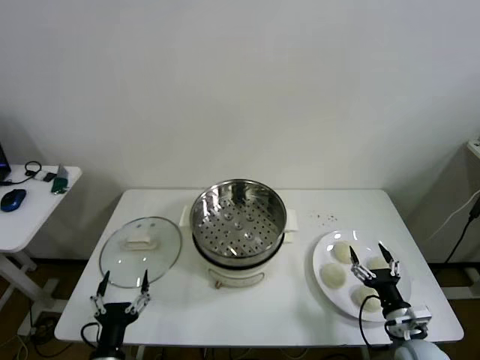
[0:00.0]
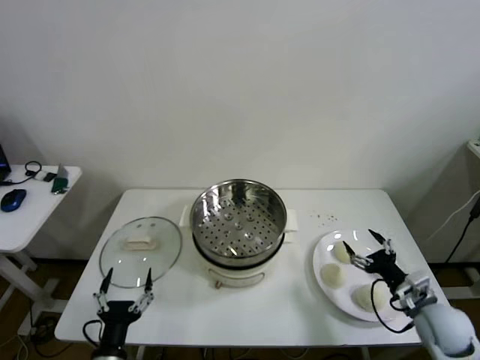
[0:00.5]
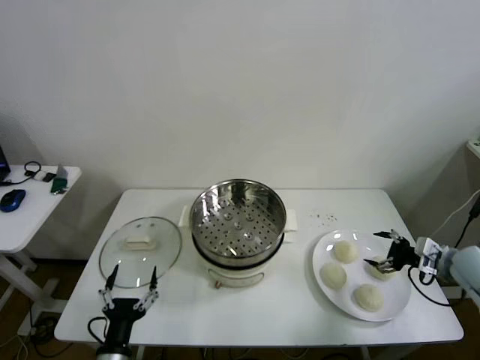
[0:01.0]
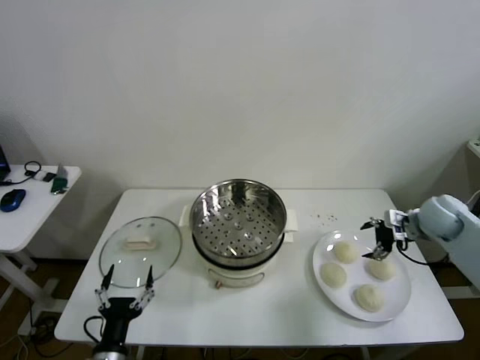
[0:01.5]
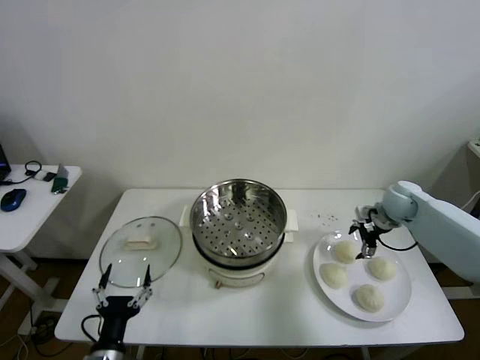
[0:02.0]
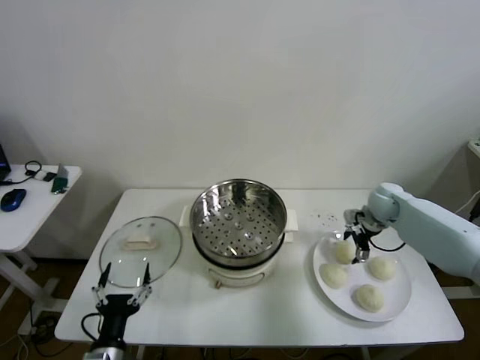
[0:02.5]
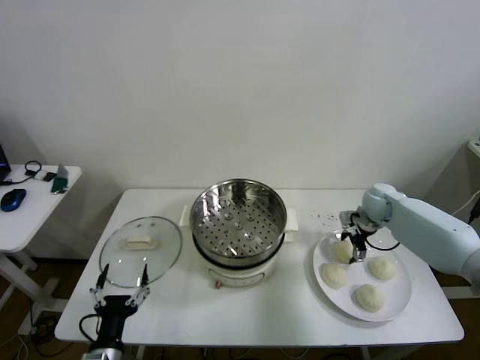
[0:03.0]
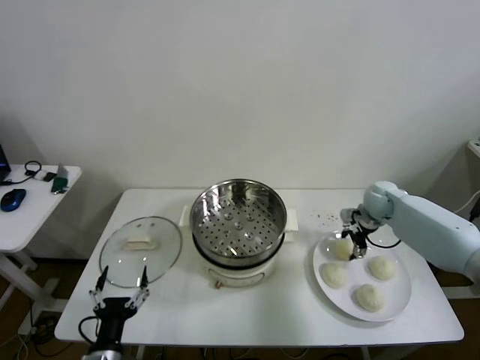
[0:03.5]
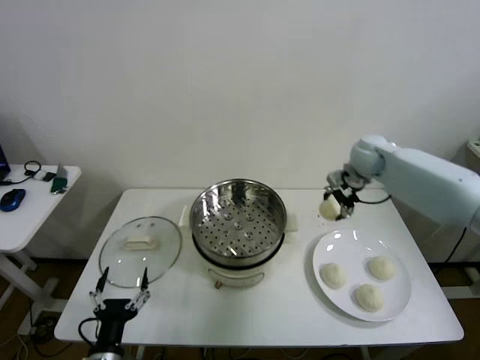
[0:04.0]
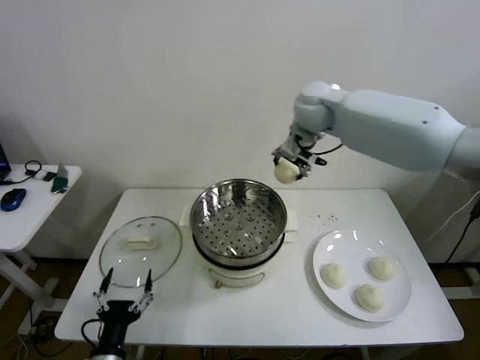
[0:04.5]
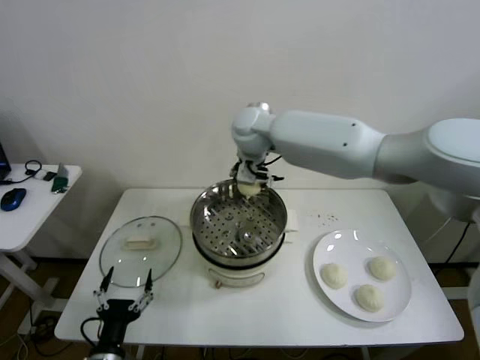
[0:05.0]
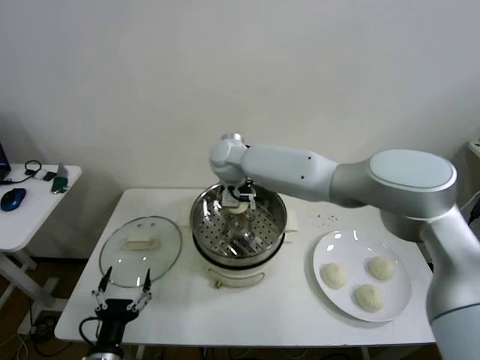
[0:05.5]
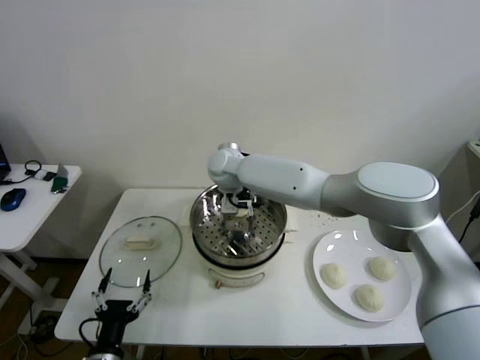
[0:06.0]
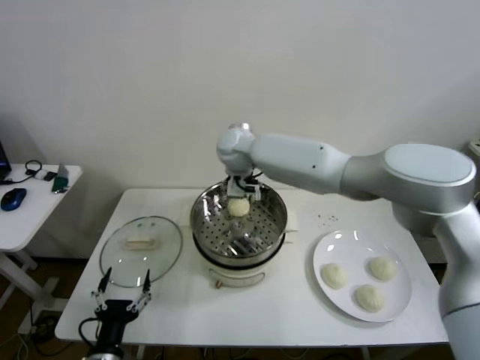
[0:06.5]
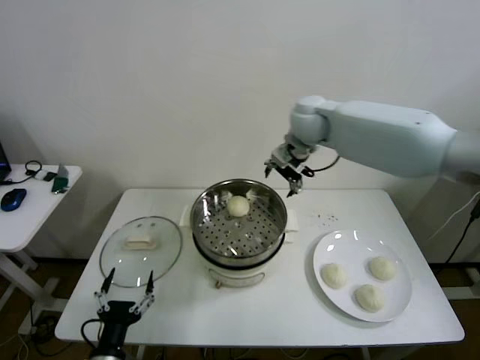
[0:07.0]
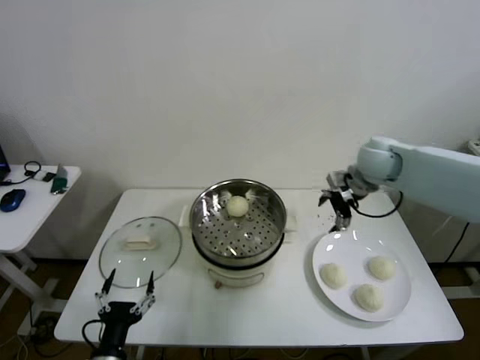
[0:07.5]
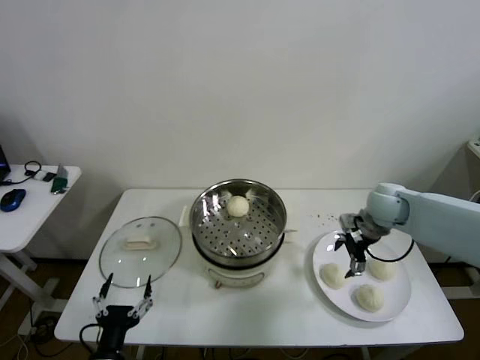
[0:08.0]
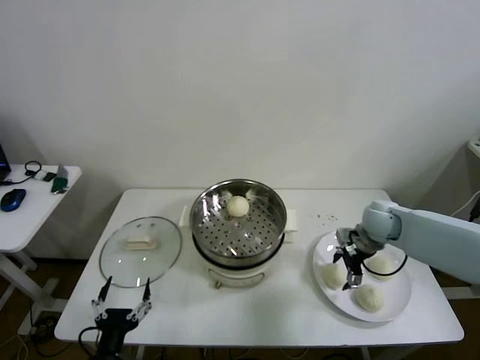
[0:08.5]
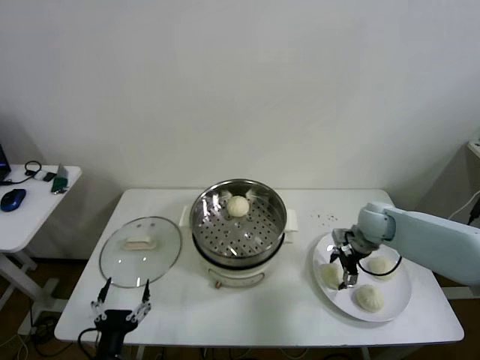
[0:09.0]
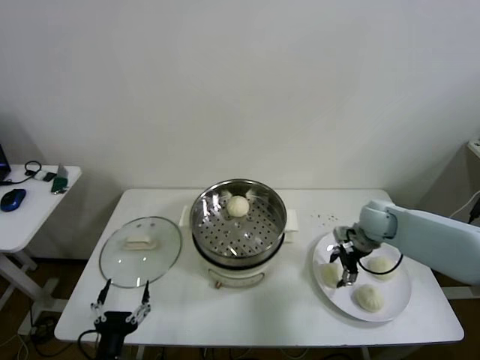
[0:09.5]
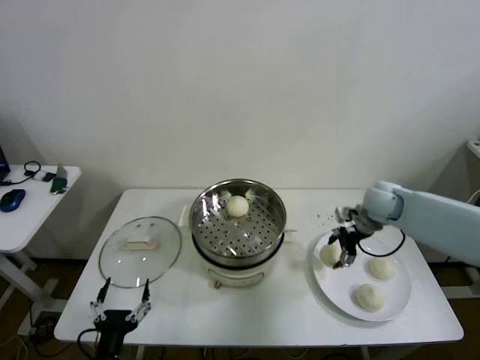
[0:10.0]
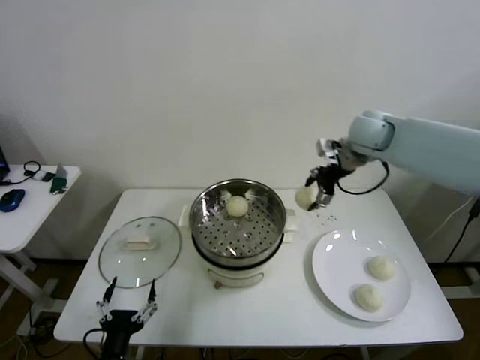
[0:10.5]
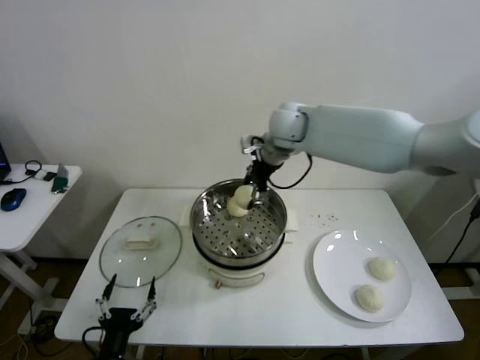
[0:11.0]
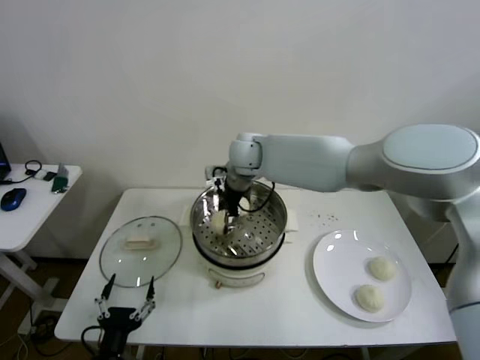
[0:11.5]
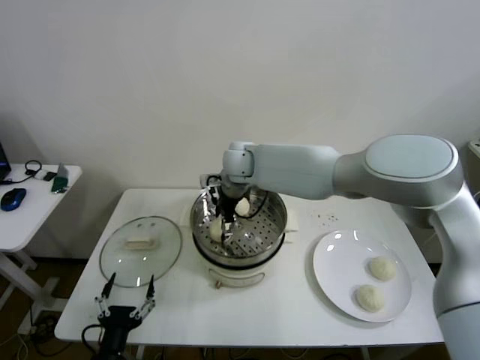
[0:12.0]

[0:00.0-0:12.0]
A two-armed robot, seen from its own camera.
Step, 0:00.0 to 0:03.0: Grasp the baozi in the plate with right gripper.
Step, 0:03.5 to 0:05.5: Place the baozi on the steamer with right gripper.
Step, 0:06.0 to 0:09.0: Grasp the baozi in the plate with right gripper.
Step, 0:09.5 to 0:11.5: Place the baozi on the steamer with right gripper.
0:02.0 to 0:04.0: The right gripper moves upward, to the left and forward, about 15 cm.
0:04.0 to 0:06.0: The right gripper heads to the left, covering some 35 cm.
0:06.0 to 0:08.0: The right gripper is displaced to the right by some 40 cm.
0:10.0 to 0:12.0: The right gripper is displaced to the left by approximately 35 cm.

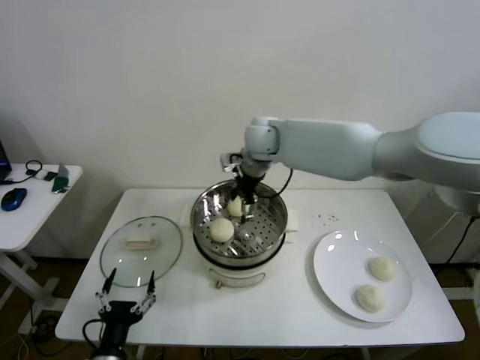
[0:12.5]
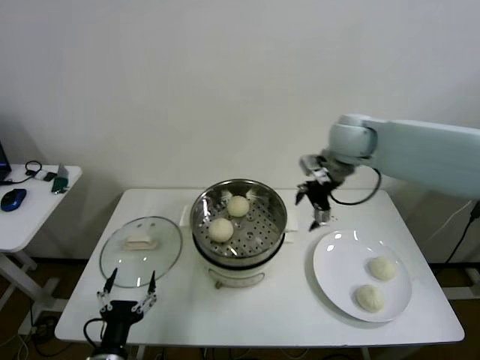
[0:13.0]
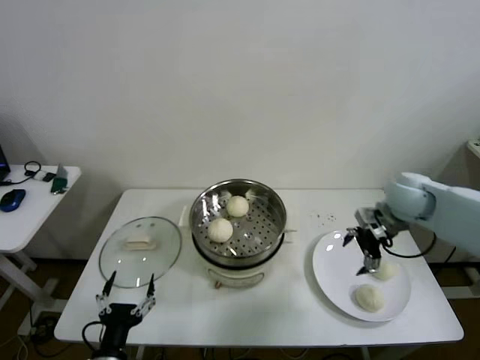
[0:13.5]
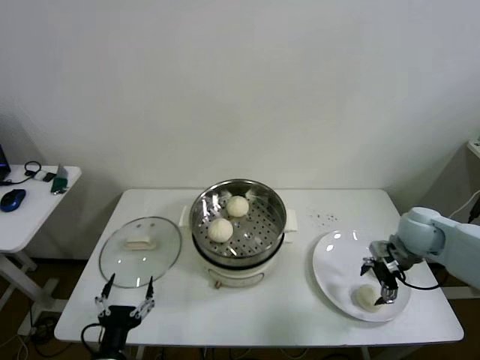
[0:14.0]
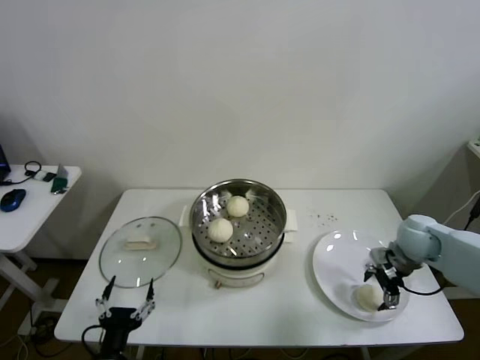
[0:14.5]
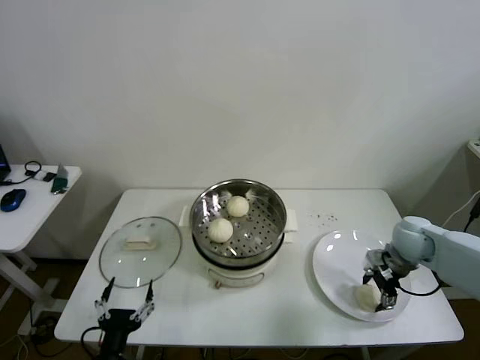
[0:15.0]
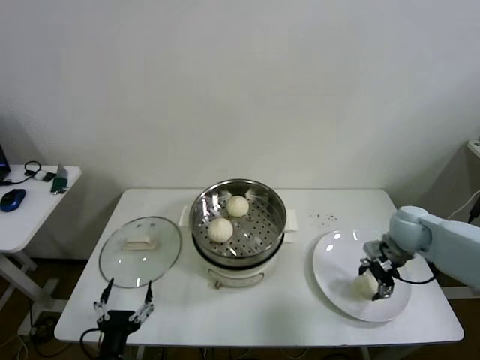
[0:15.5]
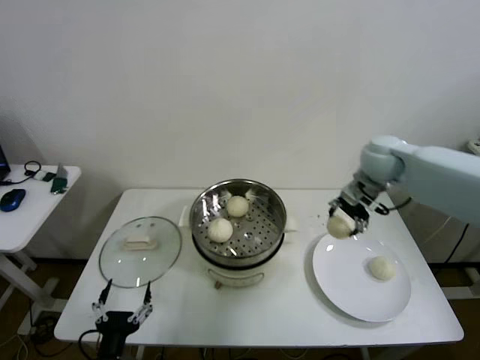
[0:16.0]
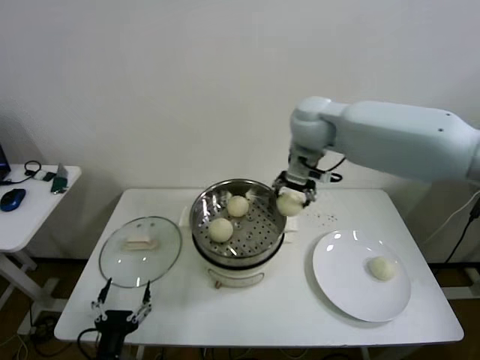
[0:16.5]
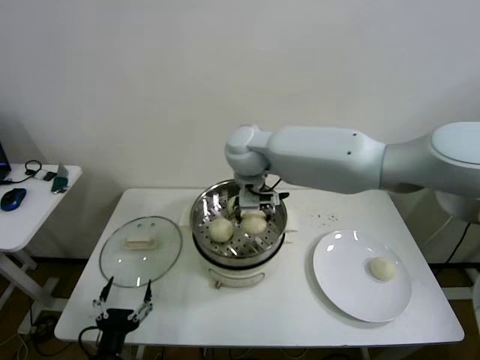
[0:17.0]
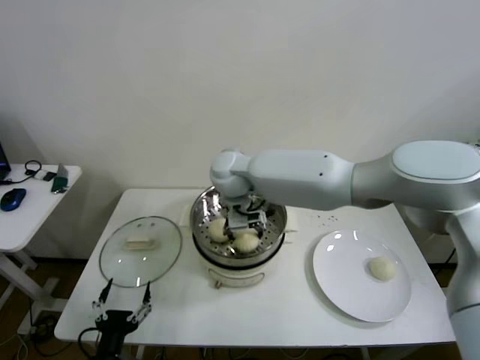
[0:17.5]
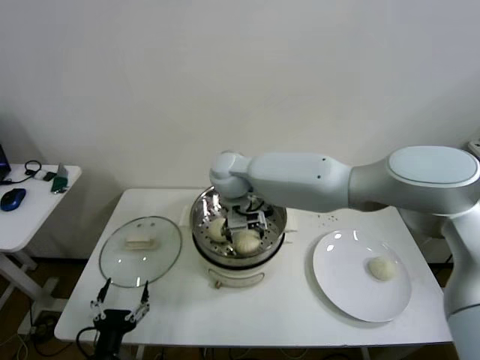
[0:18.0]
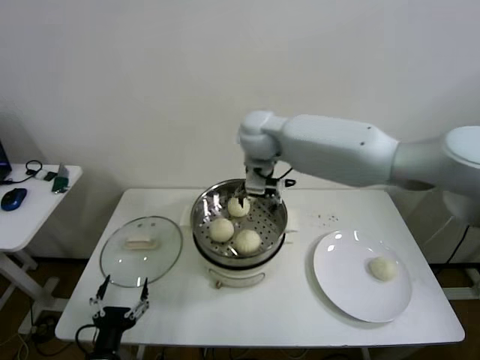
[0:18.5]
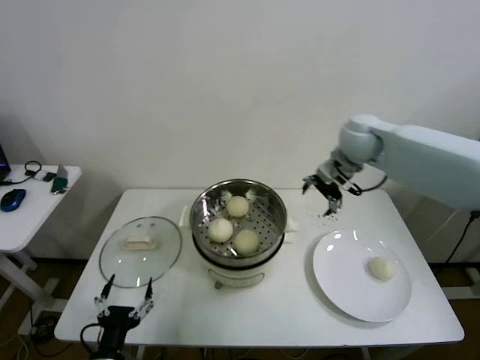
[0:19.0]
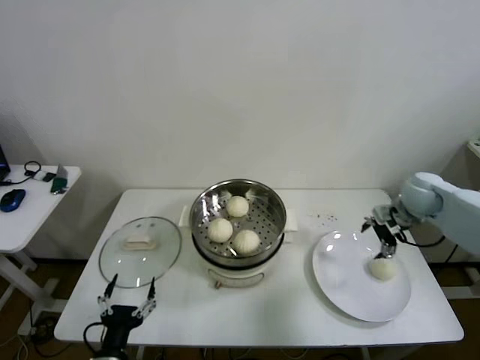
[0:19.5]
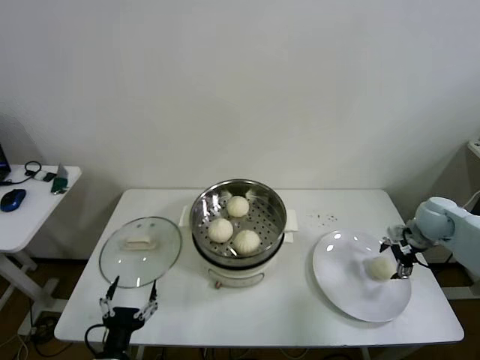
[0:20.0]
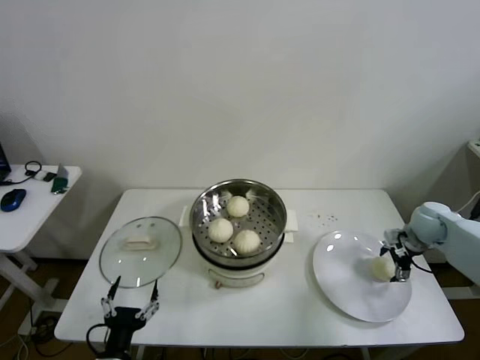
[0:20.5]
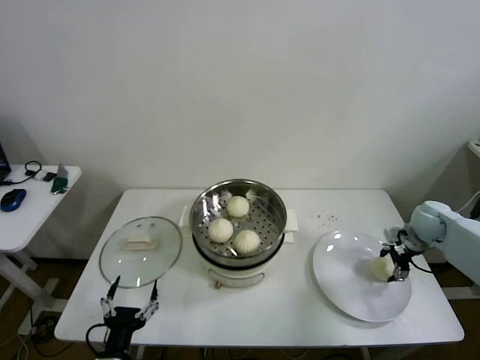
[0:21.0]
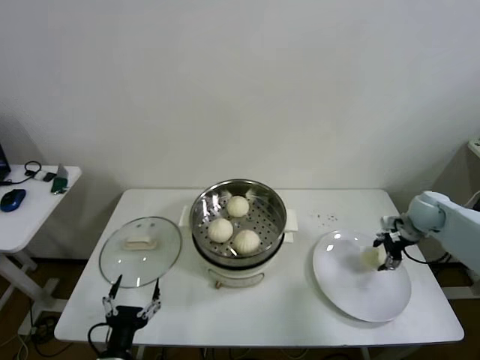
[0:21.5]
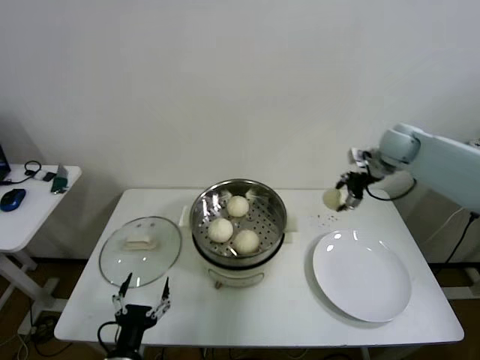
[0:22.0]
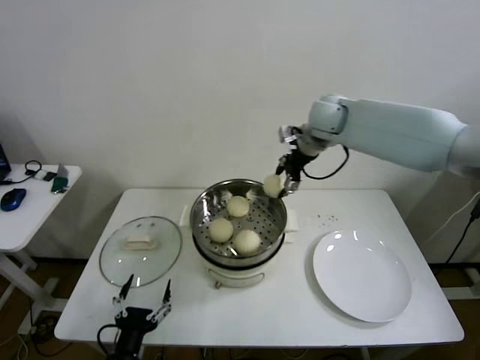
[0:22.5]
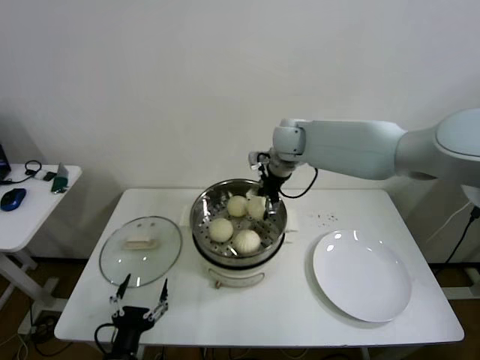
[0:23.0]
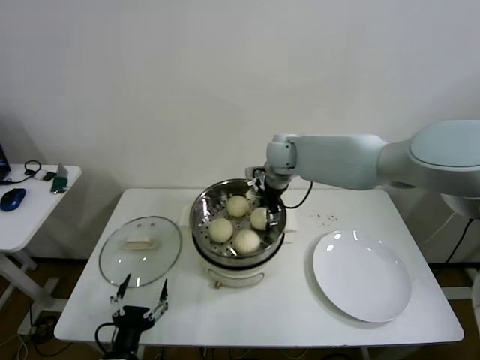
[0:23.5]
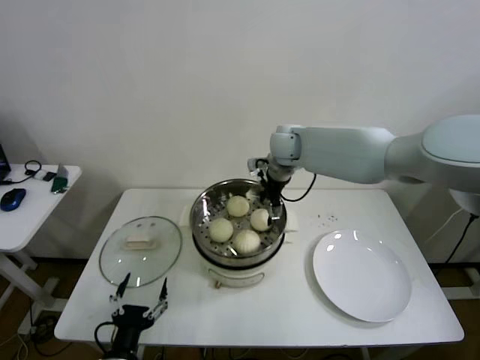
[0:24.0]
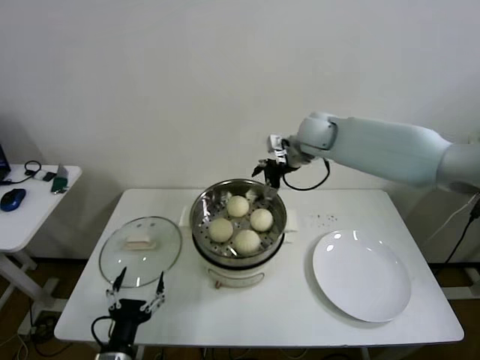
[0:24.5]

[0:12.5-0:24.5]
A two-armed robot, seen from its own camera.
Step, 0:12.5 to 0:15.0: Grasp the baozi in the plate with right gripper.
Step, 0:15.5 to 0:17.5: Place the baozi on the steamer with right gripper.
Step, 0:18.0 to 0:21.0: Grasp the baozi in the plate with right gripper.
Step, 0:21.5 to 0:23.5: Place the baozi on the steamer with right gripper.
0:12.5 to 0:14.5: The right gripper is displaced to the right and downward by about 40 cm.
0:14.5 to 0:16.5: The right gripper goes some 35 cm to the left, upward and forward.
0:16.5 to 0:18.5: The right gripper goes some 15 cm to the left.
0:18.5 to 0:20.5: The right gripper shifts some 50 cm to the right and downward.
0:20.5 to 0:22.5: The right gripper is displaced to the left, upward and forward by approximately 35 cm.

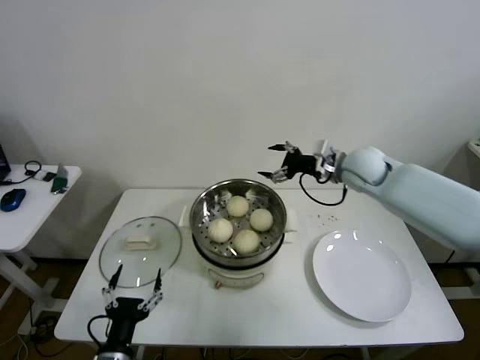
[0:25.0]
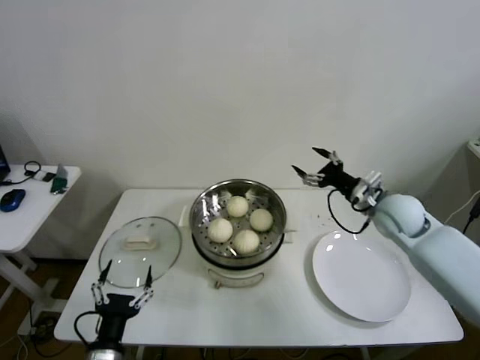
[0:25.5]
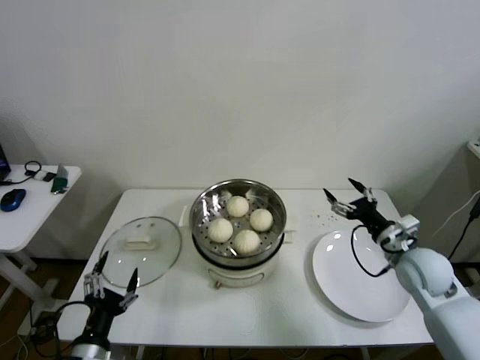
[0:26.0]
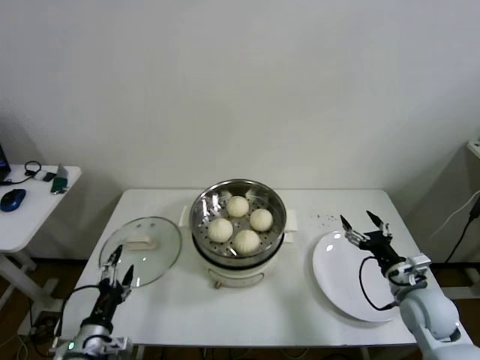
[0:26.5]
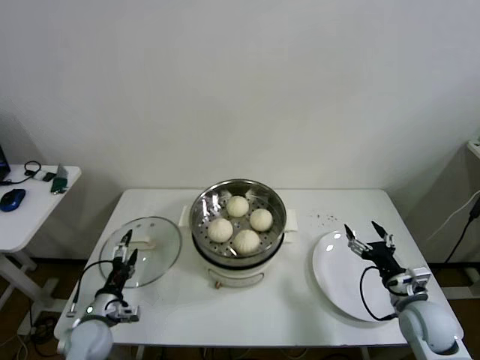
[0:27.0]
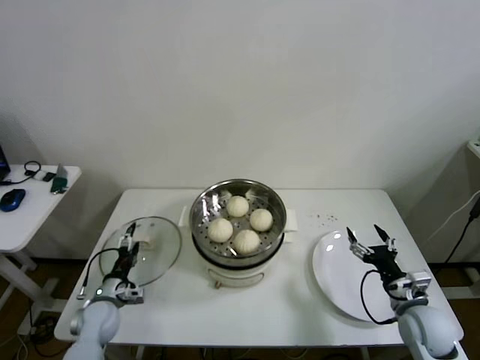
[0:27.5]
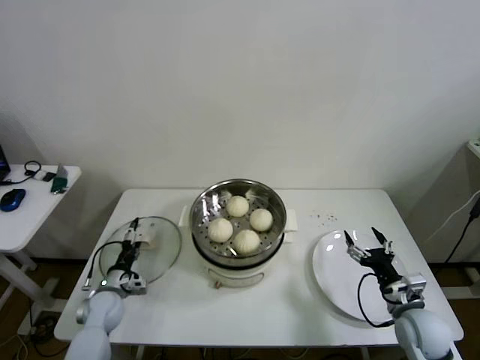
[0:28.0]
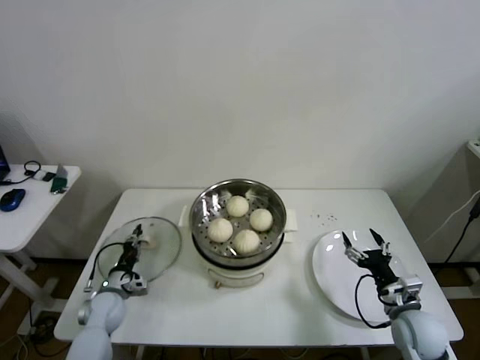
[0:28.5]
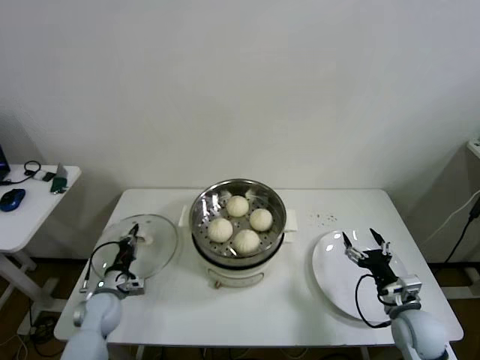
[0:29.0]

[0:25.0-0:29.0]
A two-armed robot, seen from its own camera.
Step, 0:25.0 to 0:28.5: Grasp the pot lid with left gripper.
0:25.0 to 0:27.0: The left gripper goes some 20 cm forward, to the left and downward. The right gripper travels backward, downward and to the right by about 35 cm.
0:27.0 to 0:29.0: The left gripper is displaced forward by about 10 cm, and closes up.
